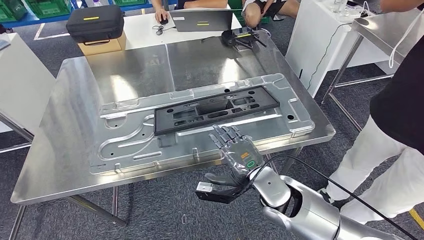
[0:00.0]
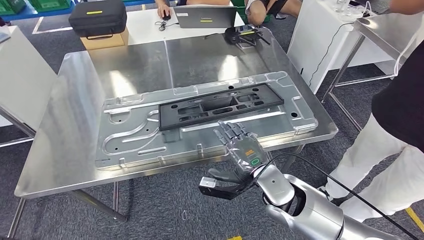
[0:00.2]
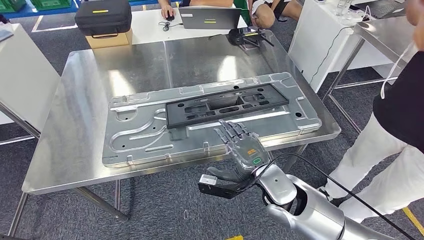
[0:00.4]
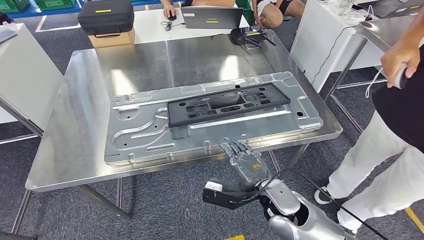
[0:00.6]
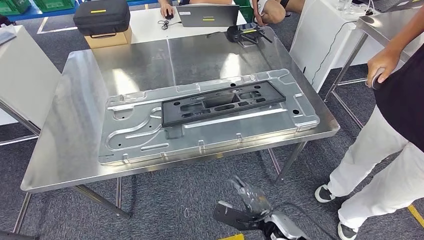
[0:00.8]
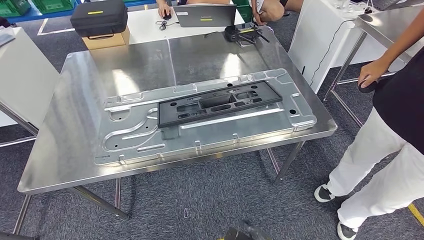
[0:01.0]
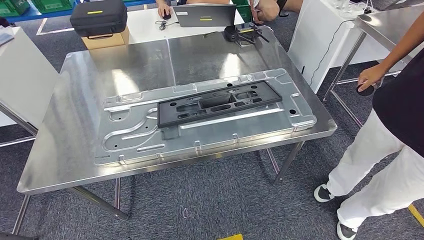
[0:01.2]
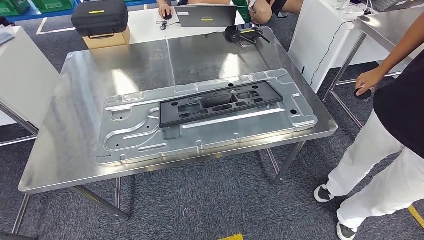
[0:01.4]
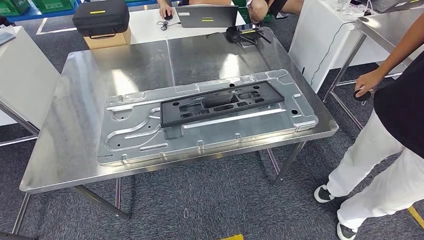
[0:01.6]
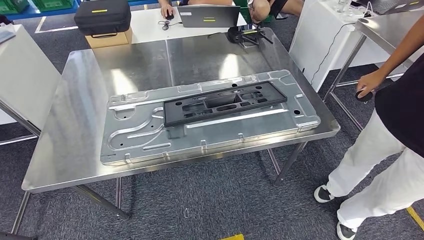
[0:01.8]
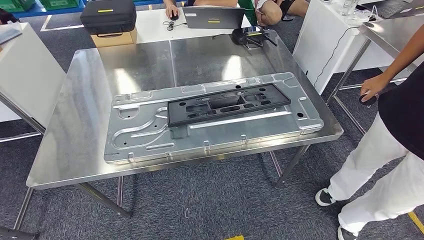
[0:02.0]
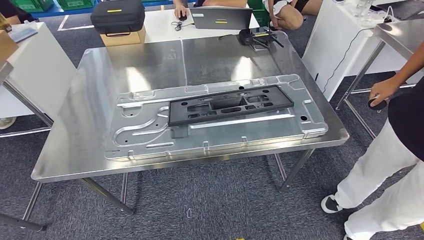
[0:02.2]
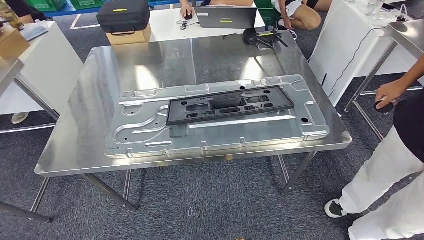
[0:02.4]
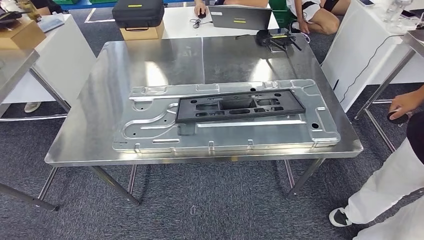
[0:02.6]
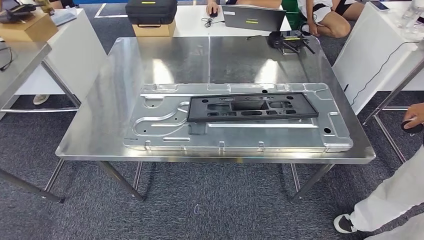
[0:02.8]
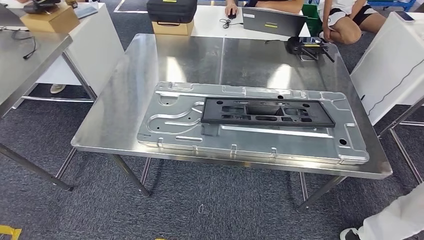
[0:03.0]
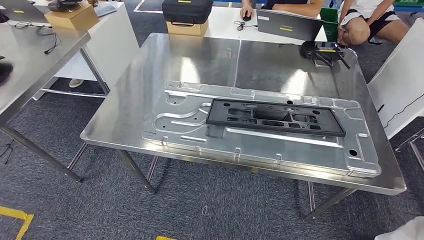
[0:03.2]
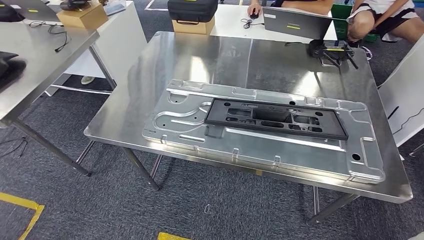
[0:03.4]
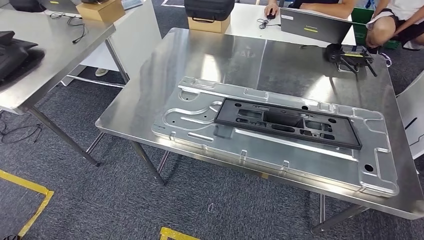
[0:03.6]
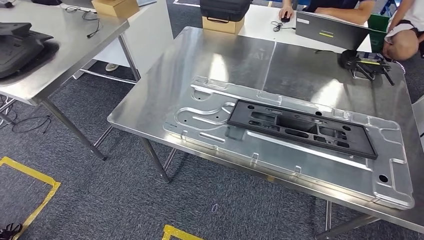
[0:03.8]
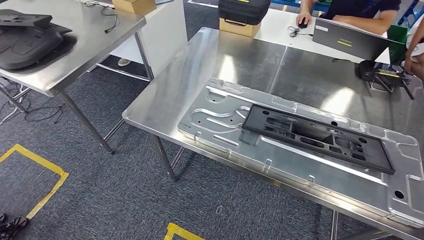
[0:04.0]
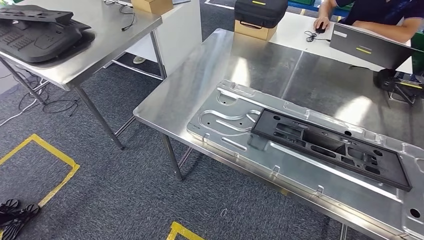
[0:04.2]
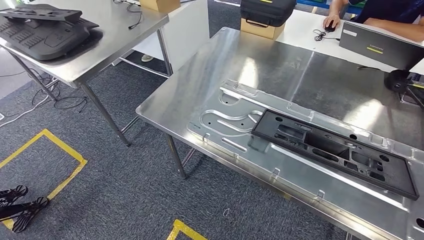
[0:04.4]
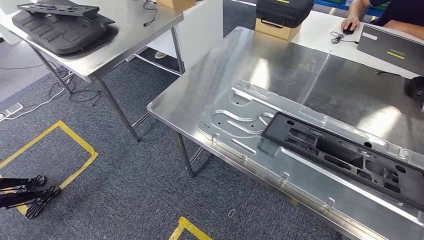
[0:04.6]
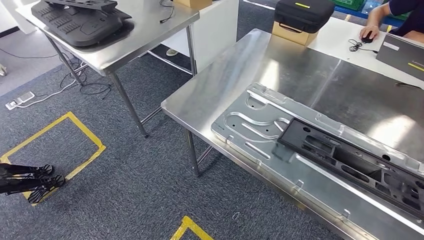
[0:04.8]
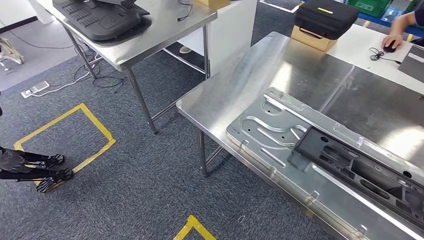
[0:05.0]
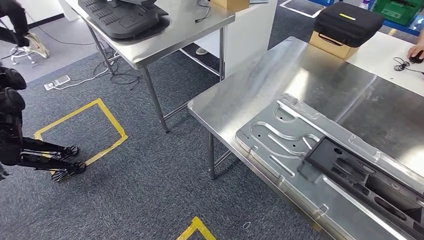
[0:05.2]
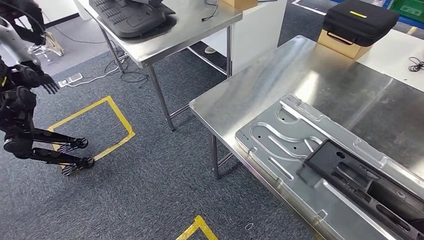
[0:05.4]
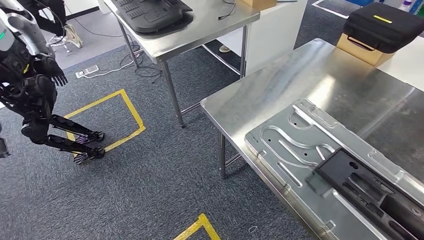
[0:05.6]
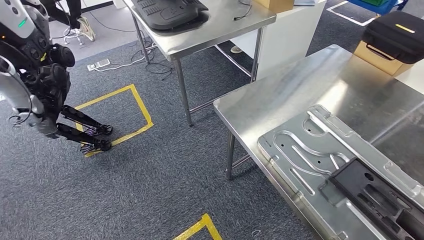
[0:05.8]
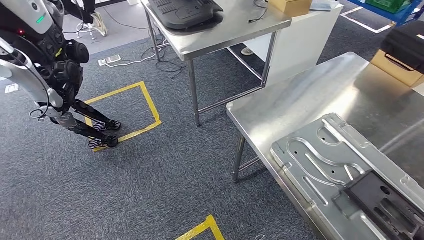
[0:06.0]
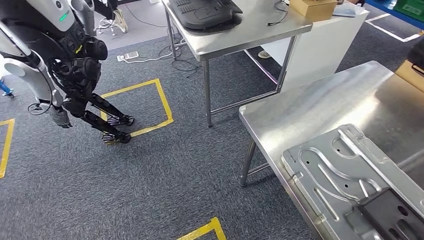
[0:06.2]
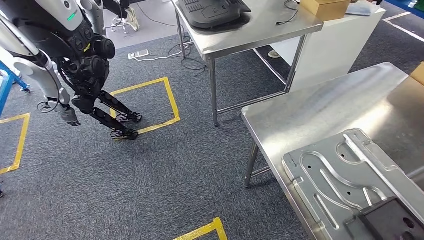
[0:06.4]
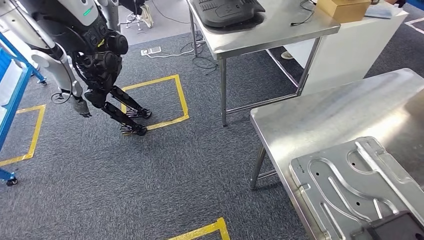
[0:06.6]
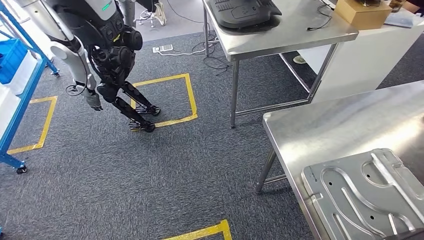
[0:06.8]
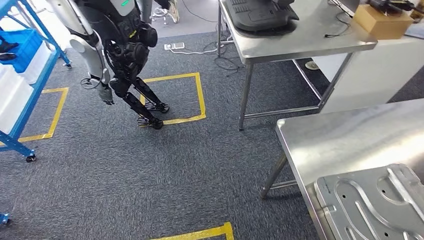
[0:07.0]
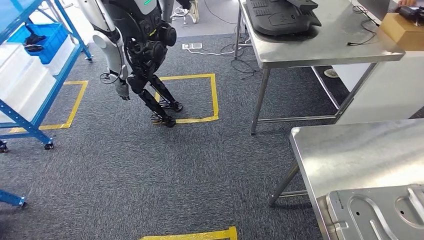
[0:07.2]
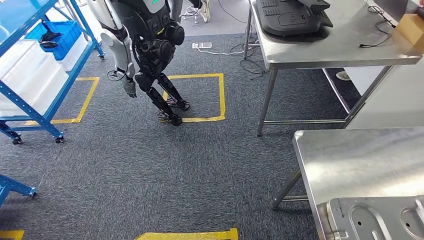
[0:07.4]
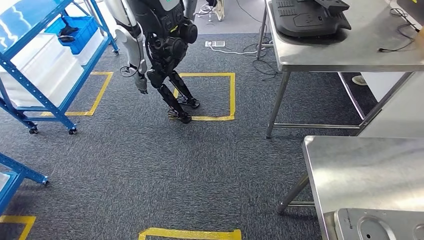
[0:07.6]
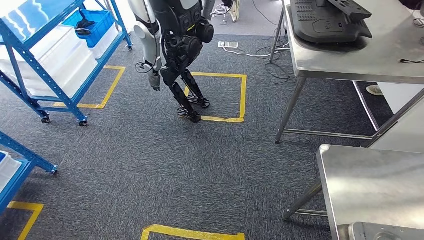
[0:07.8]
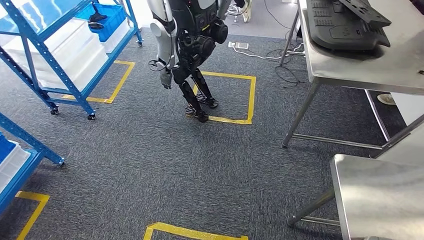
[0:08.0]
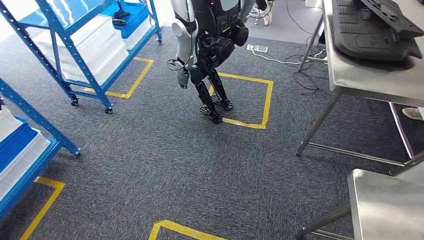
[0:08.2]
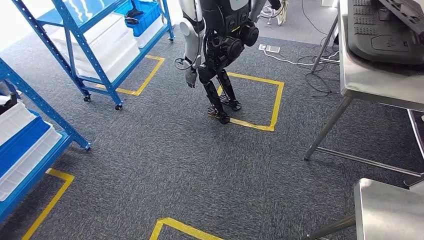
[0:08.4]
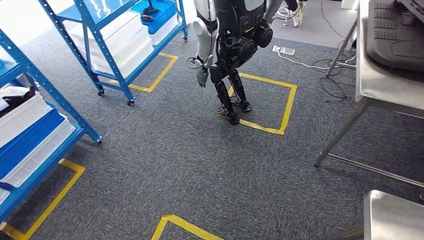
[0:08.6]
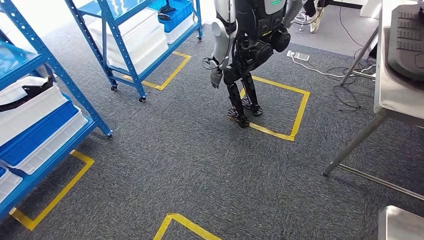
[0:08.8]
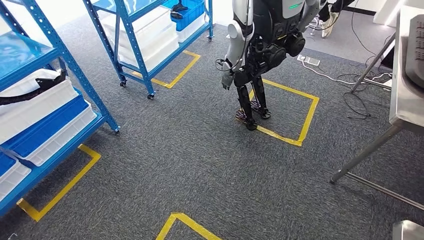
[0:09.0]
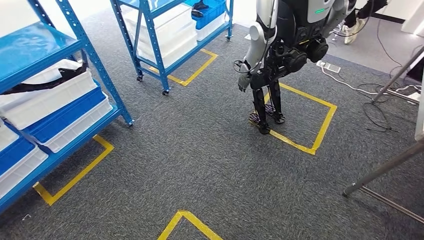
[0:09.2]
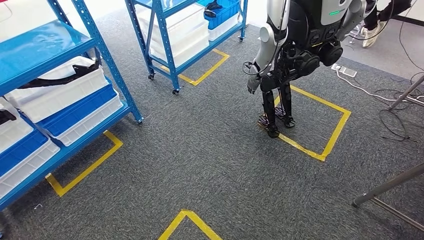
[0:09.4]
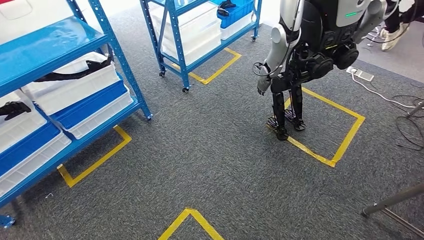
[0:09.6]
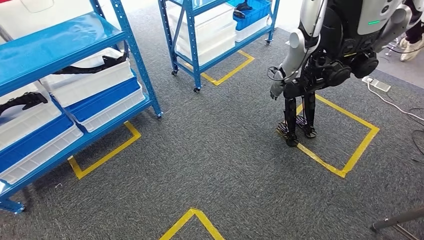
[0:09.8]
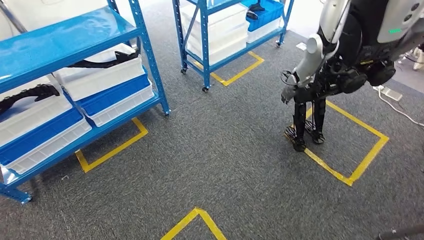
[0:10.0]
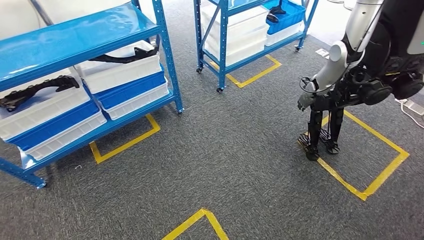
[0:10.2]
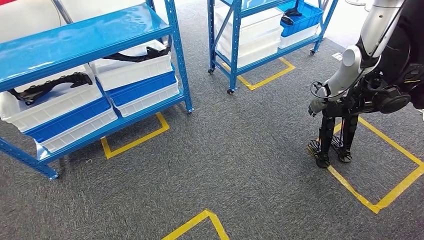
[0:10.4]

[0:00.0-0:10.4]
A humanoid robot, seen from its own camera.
Step, 0:00.0 to 0:10.4: Move to the initial position of the shelf.
